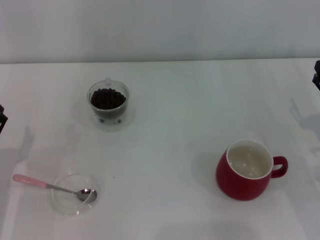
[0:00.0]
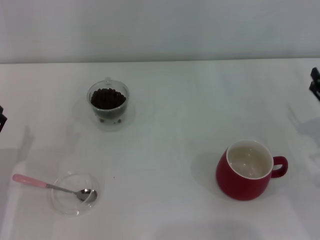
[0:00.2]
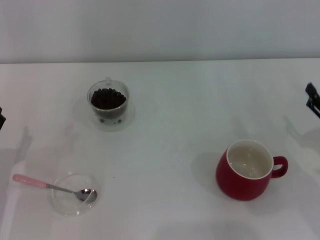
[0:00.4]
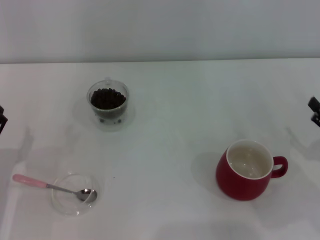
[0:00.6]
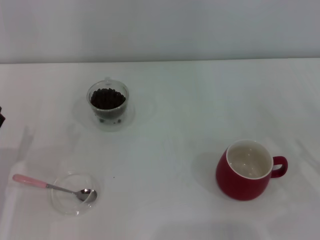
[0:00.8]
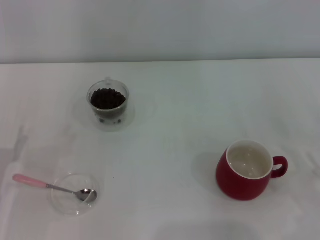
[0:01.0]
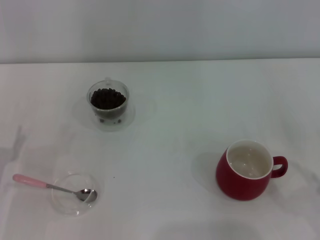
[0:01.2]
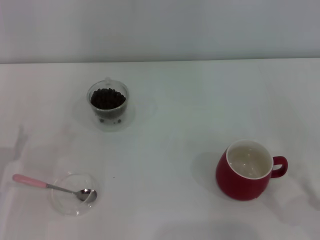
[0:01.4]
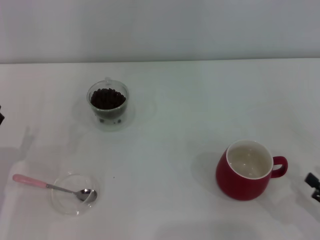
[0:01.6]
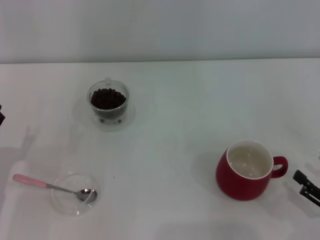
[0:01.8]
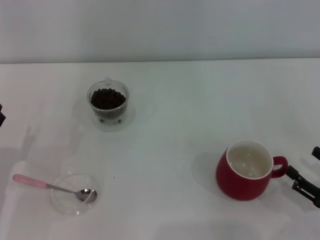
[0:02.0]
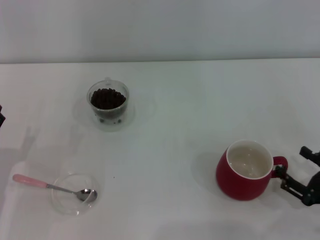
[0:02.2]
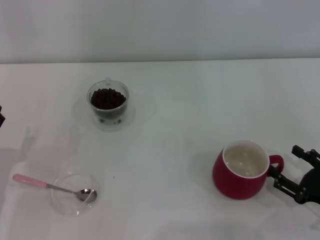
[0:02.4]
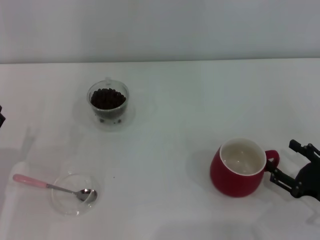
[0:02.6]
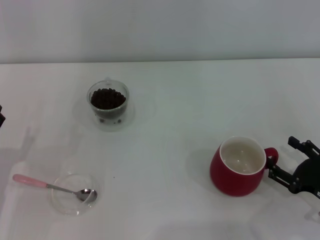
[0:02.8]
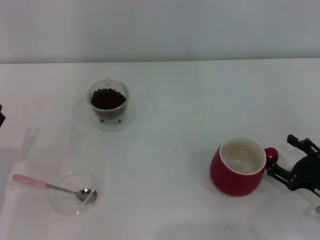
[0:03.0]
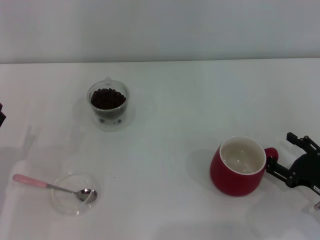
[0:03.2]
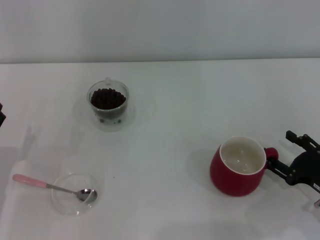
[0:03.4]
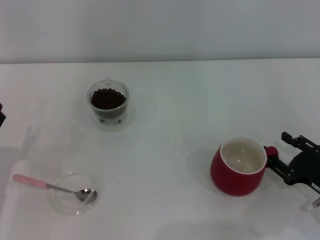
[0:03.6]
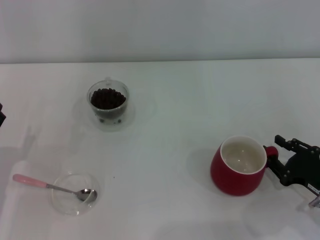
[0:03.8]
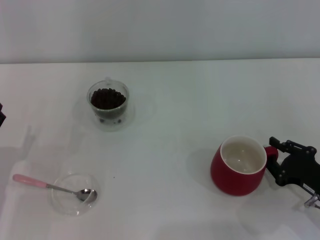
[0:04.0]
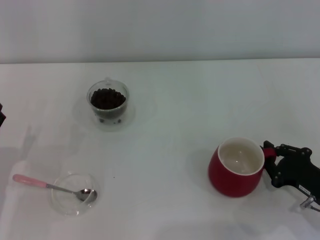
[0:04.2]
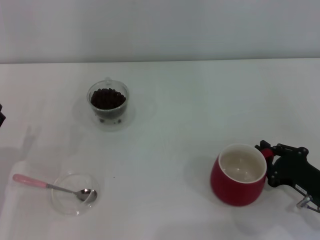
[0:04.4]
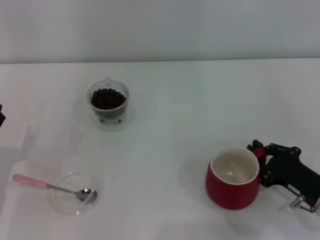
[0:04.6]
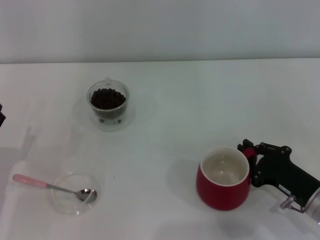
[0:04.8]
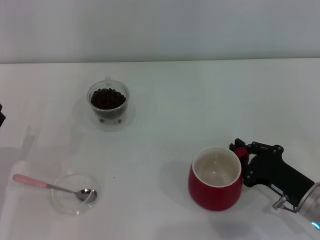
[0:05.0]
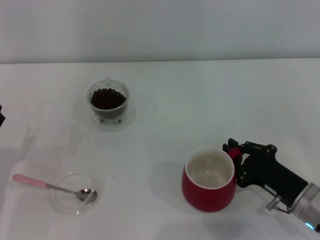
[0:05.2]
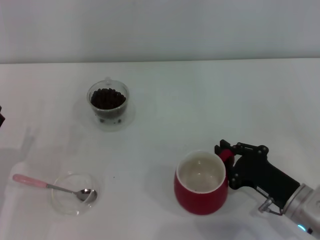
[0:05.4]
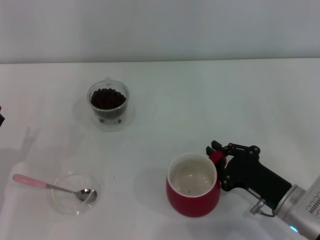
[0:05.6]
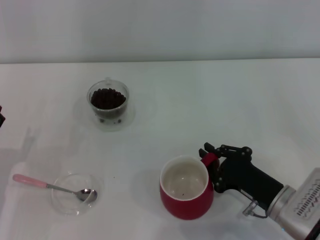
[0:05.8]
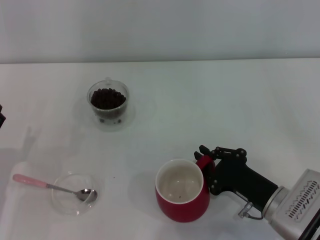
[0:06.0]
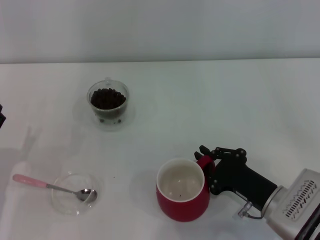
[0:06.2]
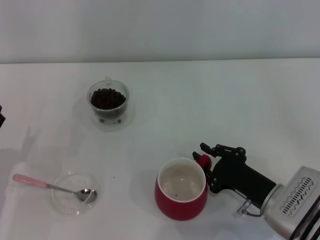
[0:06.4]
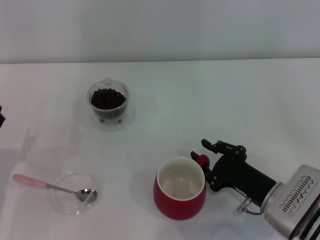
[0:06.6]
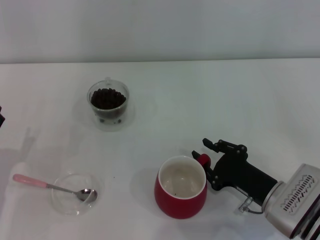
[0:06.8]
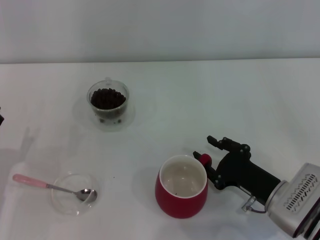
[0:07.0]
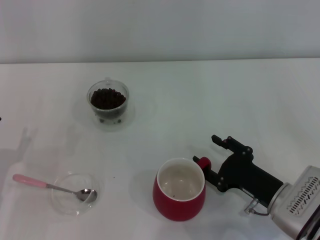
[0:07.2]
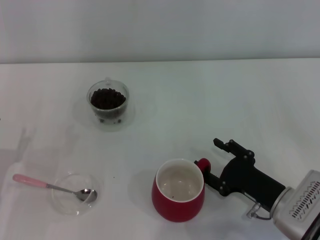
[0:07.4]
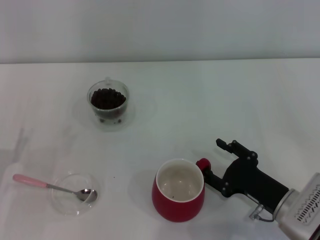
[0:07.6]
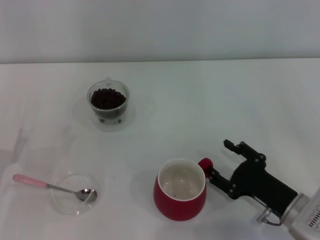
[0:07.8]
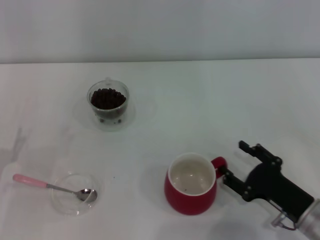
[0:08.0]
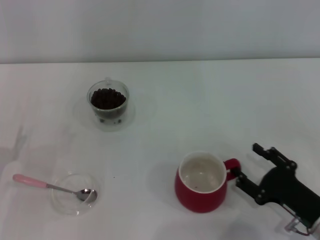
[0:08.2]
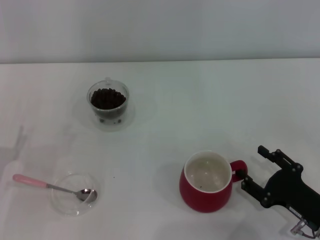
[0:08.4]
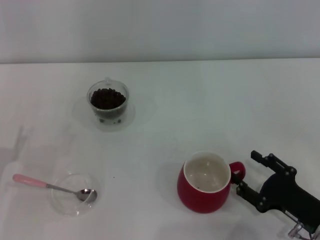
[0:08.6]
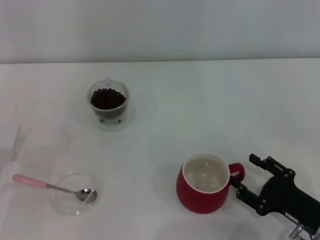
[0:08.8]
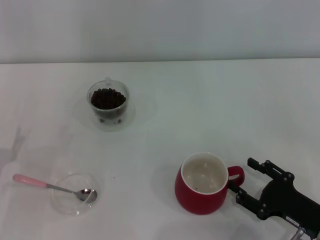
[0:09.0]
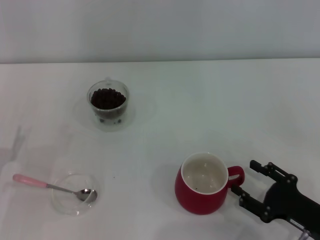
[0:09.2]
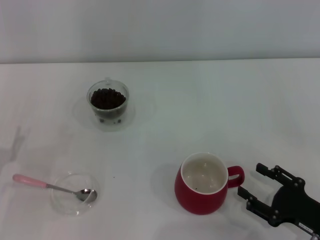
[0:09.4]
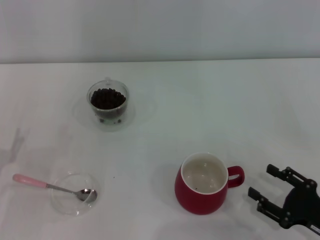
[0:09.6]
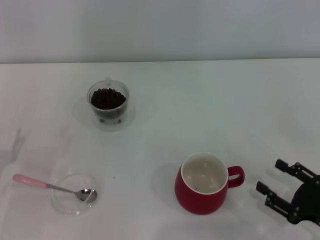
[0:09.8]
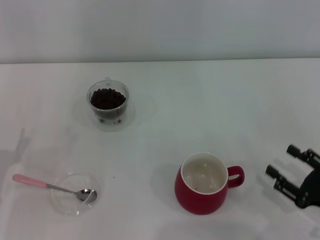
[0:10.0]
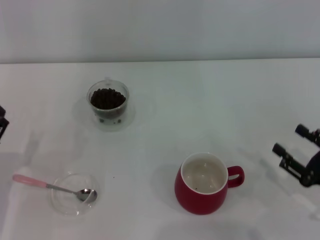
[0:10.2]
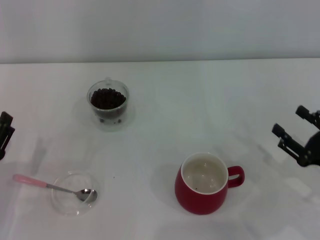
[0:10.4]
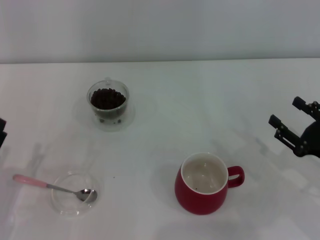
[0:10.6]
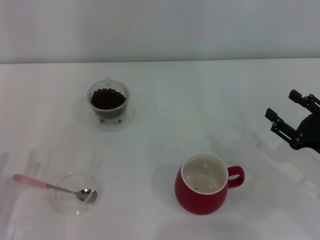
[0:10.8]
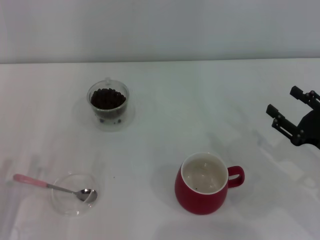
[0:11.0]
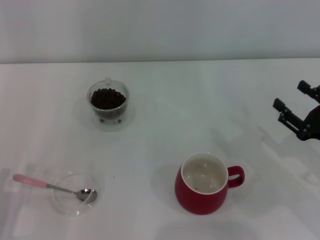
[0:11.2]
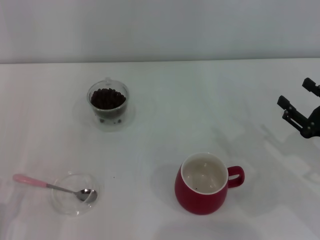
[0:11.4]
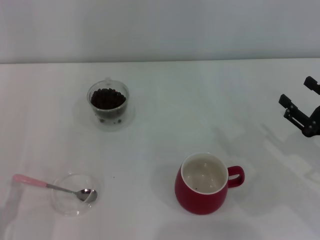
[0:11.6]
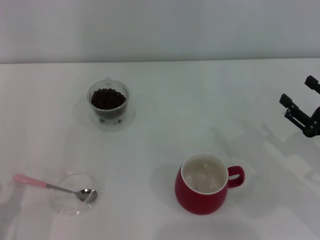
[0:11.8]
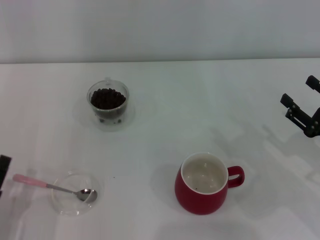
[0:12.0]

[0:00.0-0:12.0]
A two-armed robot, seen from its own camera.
Task of the whole recording: Use a pink spoon to take out the coffee beans from the glass and pour them into the red cup.
0:00.0 to 0:01.6: The right gripper travels backward by roughly 15 cm.
0:01.6 to 0:03.0: The right gripper shifts some 10 cm forward.
0:03.0 to 0:04.4: The right gripper closes.
0:04.4 to 0:06.0: The right gripper goes approximately 10 cm to the left.
0:06.0 to 0:07.6: The right gripper opens up.
0:07.6 to 0:09.0: The right gripper shifts about 5 cm to the right.
0:09.0 to 0:10.4: The right gripper heads to the right, covering some 5 cm.
0:10.4 to 0:12.0: The left gripper shifts roughly 5 cm backward.

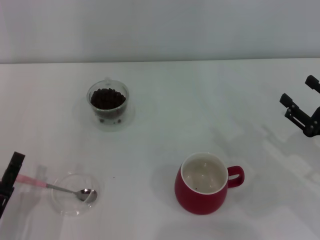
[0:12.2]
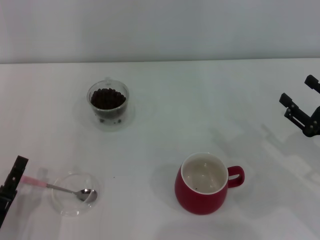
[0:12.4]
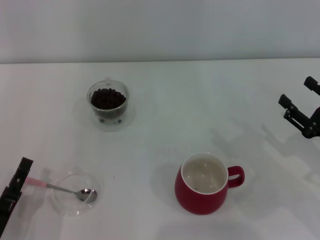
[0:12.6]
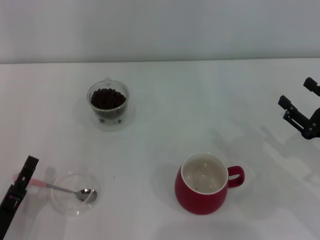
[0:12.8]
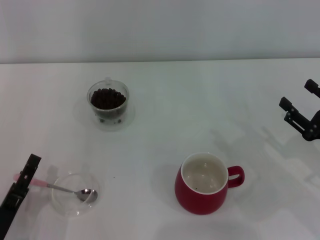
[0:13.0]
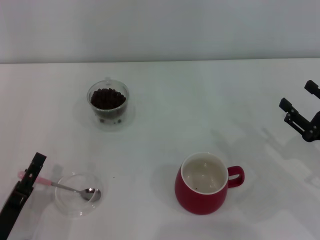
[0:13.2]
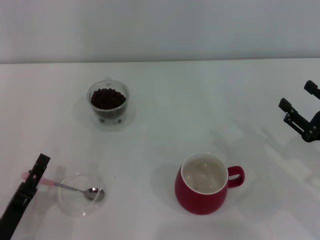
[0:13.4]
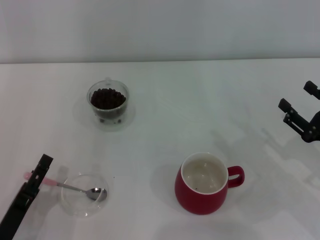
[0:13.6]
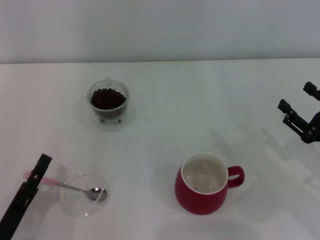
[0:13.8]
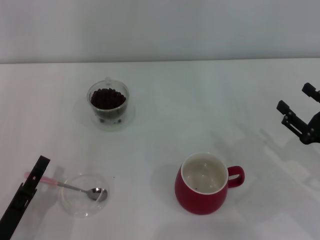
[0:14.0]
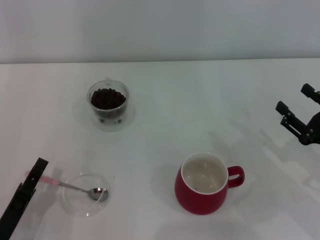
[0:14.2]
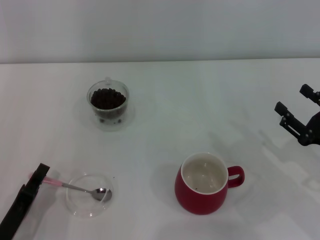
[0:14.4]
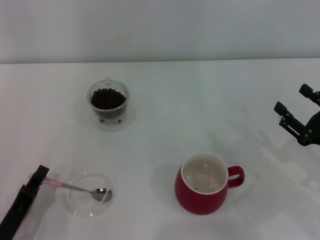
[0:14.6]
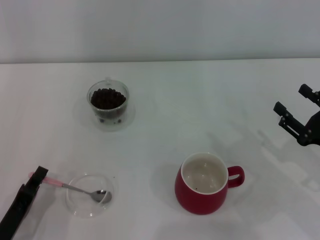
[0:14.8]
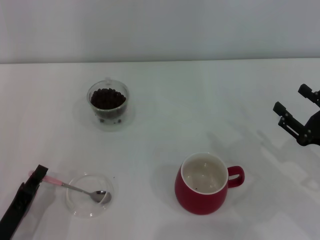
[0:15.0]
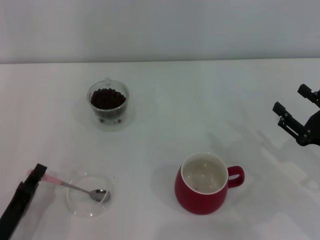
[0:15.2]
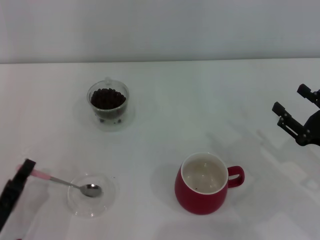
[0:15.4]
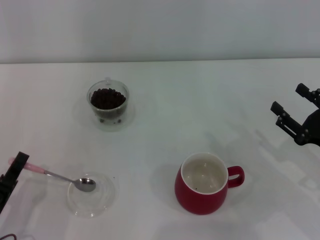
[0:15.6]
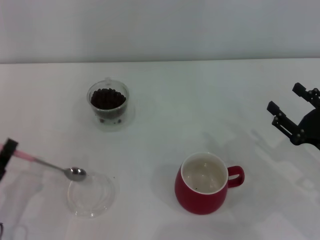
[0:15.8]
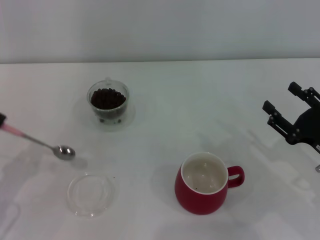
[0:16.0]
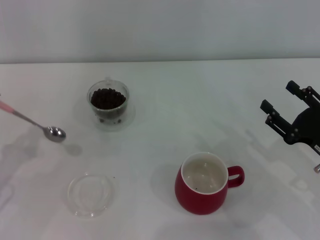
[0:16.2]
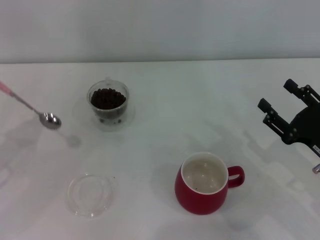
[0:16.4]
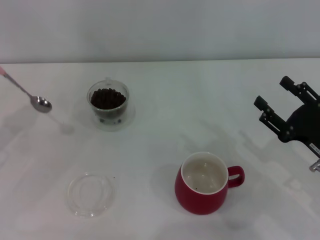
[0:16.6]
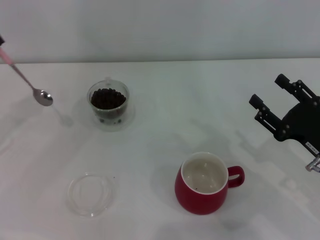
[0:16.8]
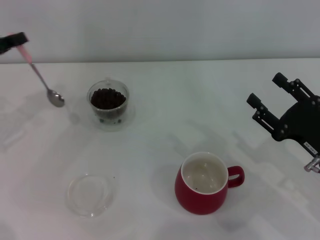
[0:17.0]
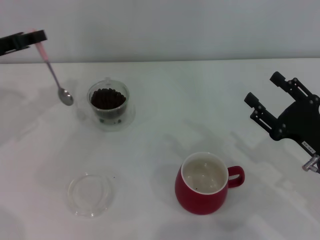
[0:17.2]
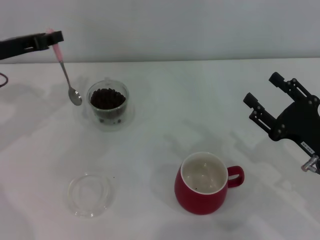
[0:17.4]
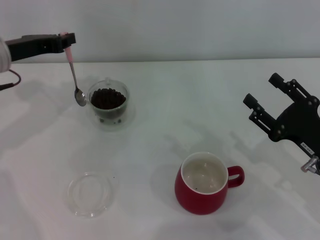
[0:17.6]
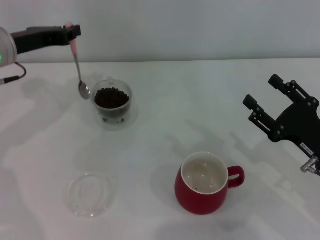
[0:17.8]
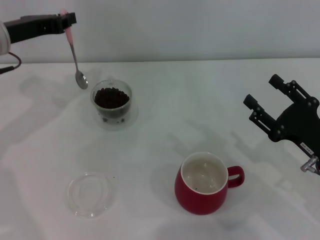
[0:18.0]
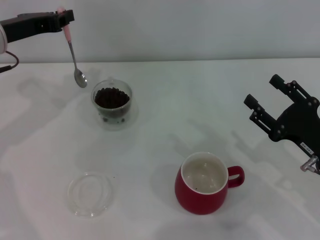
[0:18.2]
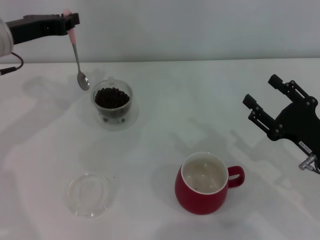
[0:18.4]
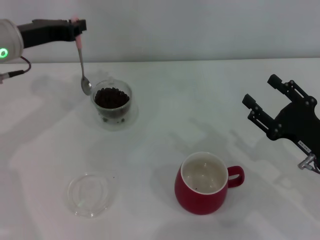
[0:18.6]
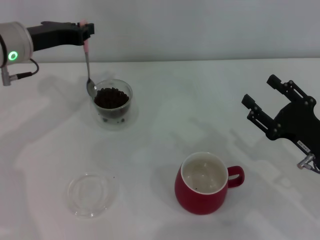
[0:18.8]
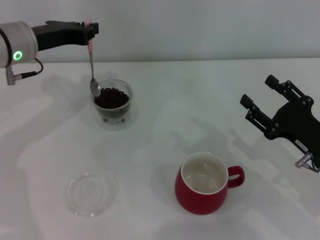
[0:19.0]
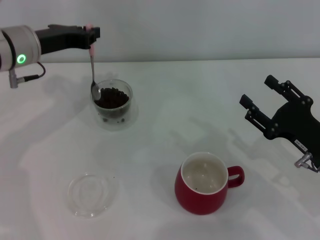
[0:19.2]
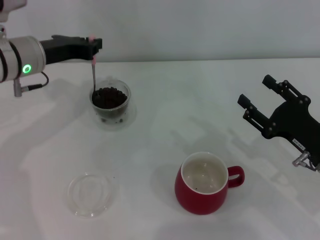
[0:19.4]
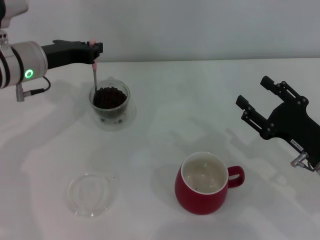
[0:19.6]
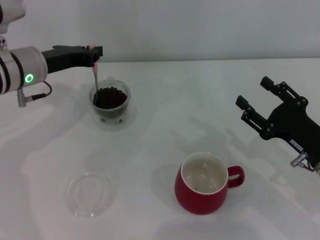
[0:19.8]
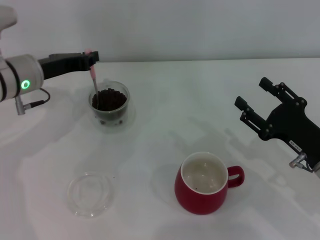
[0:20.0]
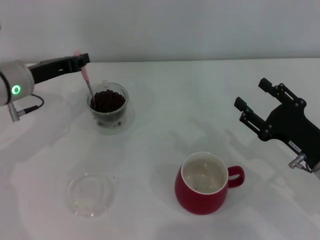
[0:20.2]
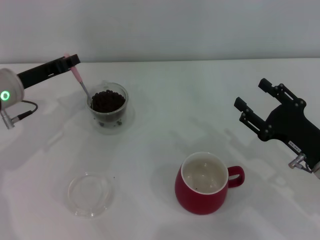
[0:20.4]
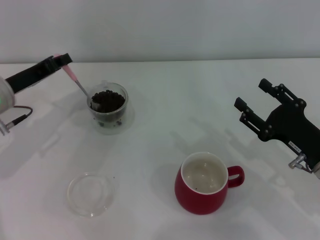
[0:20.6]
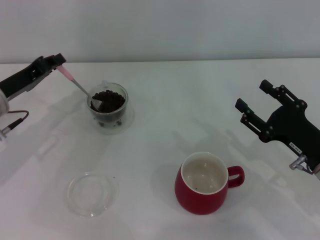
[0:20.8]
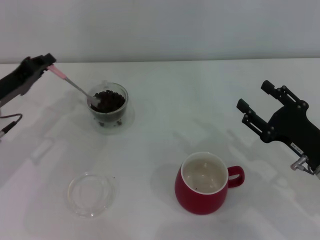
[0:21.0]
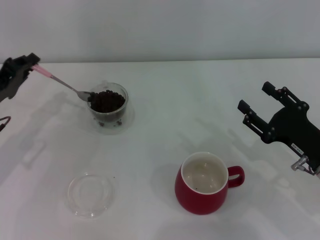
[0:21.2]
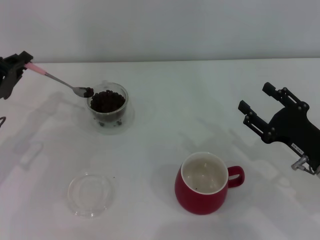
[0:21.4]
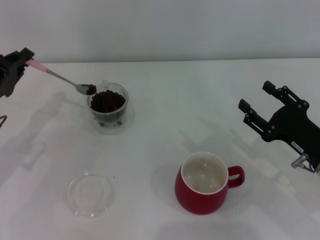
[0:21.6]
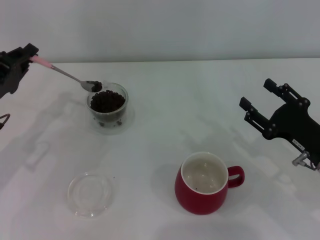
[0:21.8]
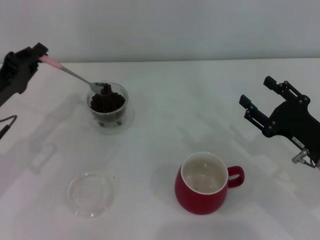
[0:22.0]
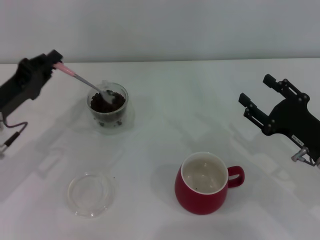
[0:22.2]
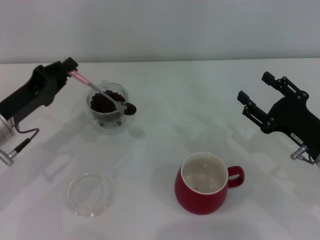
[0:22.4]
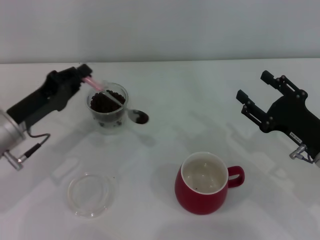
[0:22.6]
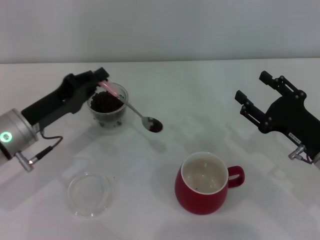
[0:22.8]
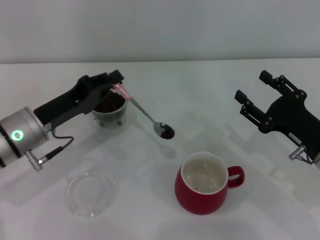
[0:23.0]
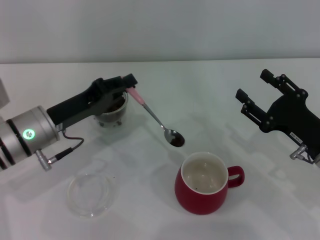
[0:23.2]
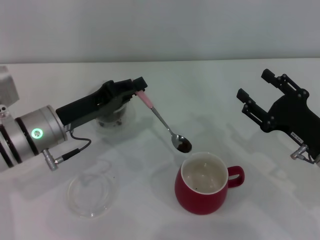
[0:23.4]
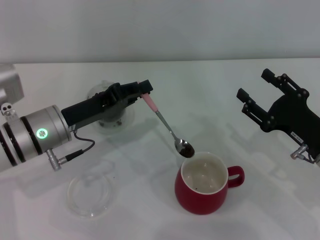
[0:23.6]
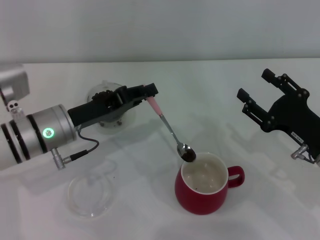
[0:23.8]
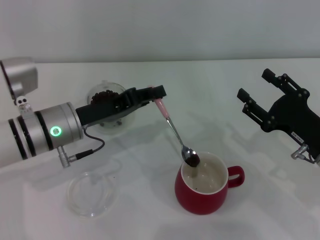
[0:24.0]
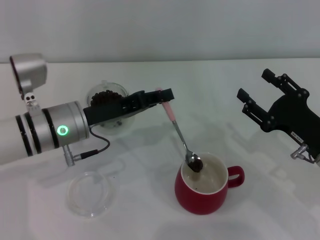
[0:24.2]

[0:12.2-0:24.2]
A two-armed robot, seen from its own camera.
Task of the whole recording: Use a pink spoon to take out the coffee beans from the glass and pour them into the red cup.
Step, 0:12.2 to 0:15.8: Pick up the spoon with the right gripper.
0:12.2 to 0:13.8: The grippers move only a little.
0:13.8 to 0:15.2: The left gripper closes its fingers.
0:15.2 to 0:16.6: The left gripper goes about 25 cm forward, upward and to the left.
0:16.6 to 0:18.2: The left gripper goes roughly 15 cm to the right, forward and upward.
0:18.2 to 0:19.8: The left gripper moves some 5 cm.
0:19.8 to 0:21.2: The left gripper shifts approximately 10 cm to the left, backward and downward.
0:21.2 to 0:22.6: The left gripper goes approximately 5 cm to the right.
0:22.6 to 0:24.2: The left gripper is displaced to the right by roughly 10 cm.
